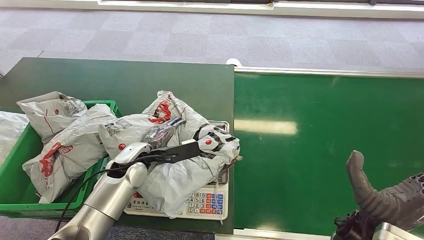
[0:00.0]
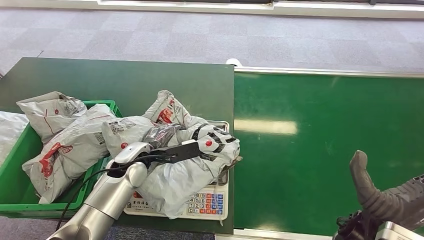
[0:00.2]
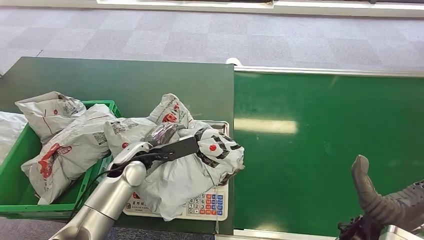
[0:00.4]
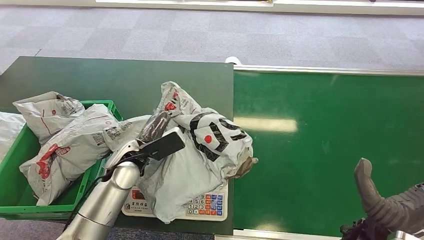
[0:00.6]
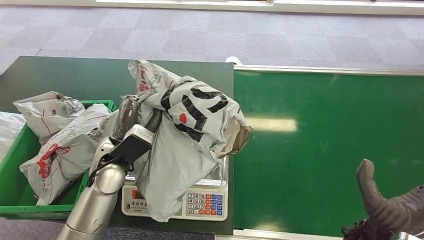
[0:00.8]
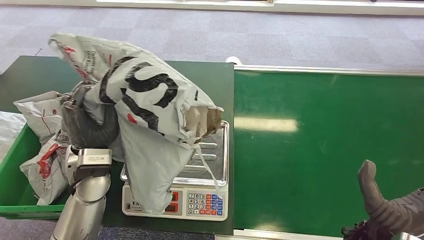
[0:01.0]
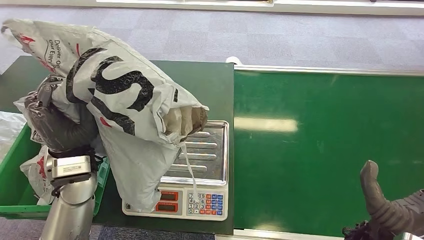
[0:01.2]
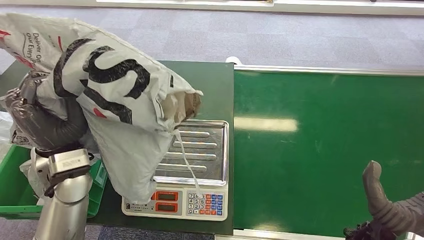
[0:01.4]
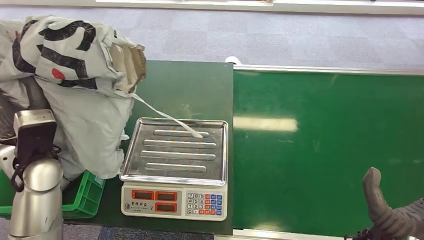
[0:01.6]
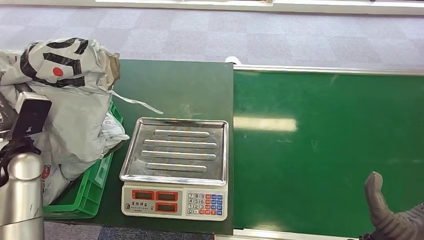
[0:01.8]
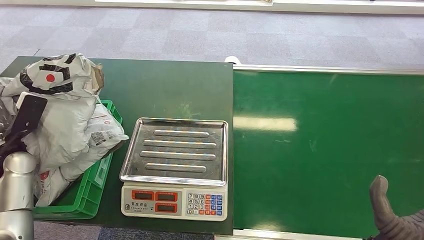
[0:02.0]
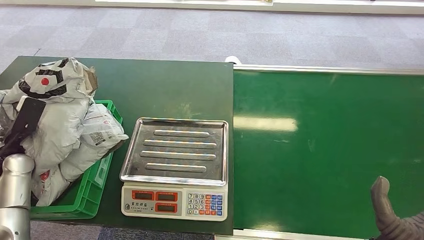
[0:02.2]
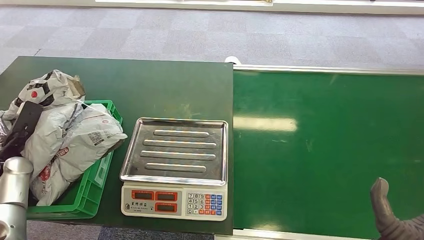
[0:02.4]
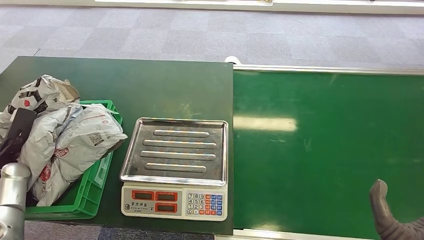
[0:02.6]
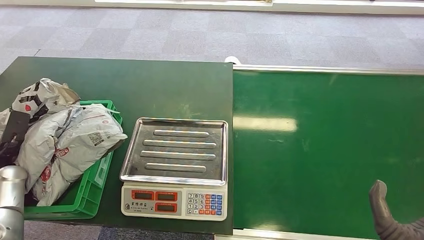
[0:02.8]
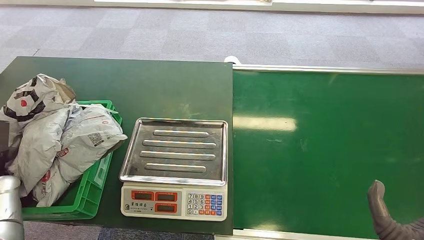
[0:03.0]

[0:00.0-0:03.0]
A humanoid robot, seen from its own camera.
Step, 0:00.0 to 0:01.4: Pick up the package from the inbound machine.
Step, 0:01.8 to 0:03.0: Place the package into the parcel locker.
